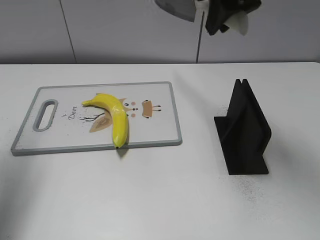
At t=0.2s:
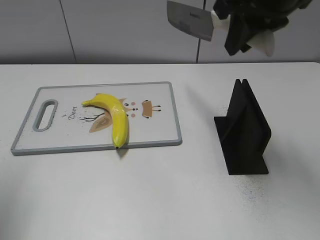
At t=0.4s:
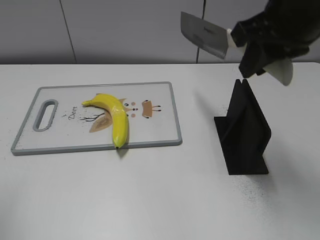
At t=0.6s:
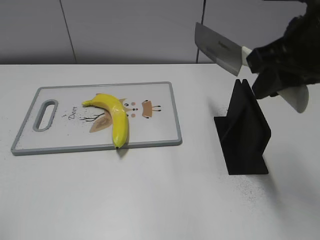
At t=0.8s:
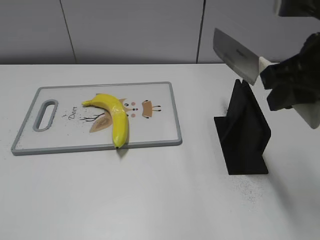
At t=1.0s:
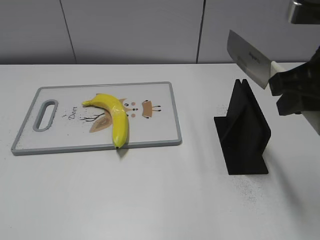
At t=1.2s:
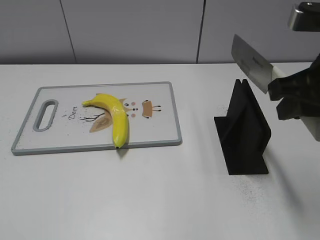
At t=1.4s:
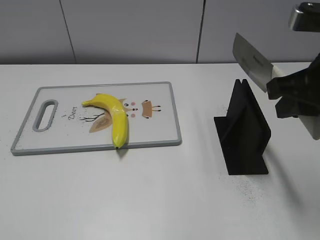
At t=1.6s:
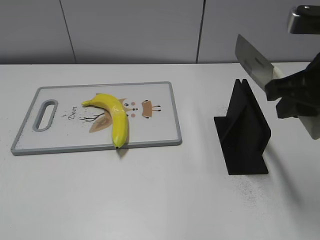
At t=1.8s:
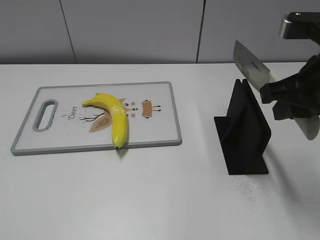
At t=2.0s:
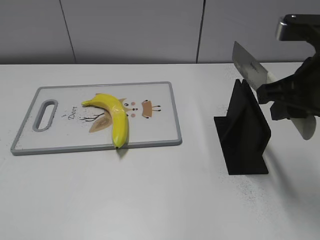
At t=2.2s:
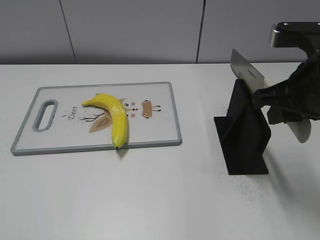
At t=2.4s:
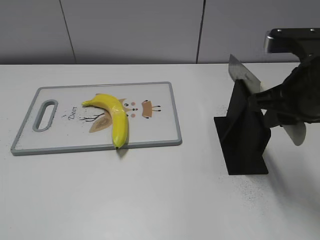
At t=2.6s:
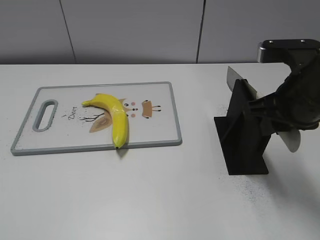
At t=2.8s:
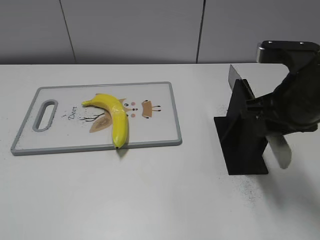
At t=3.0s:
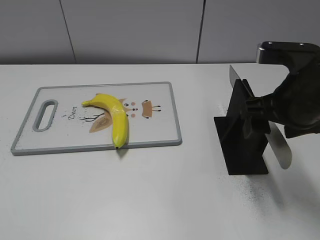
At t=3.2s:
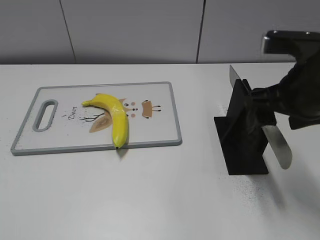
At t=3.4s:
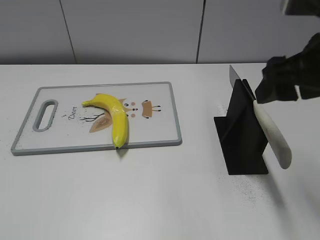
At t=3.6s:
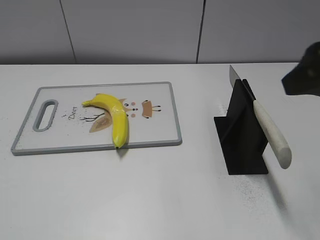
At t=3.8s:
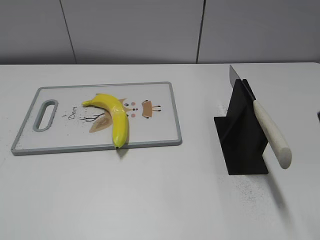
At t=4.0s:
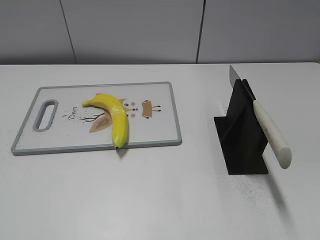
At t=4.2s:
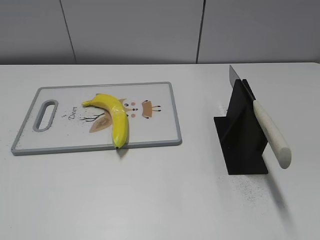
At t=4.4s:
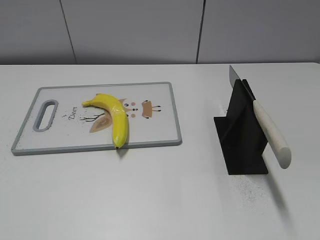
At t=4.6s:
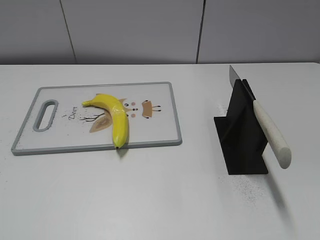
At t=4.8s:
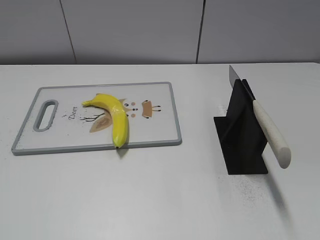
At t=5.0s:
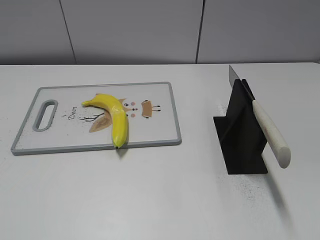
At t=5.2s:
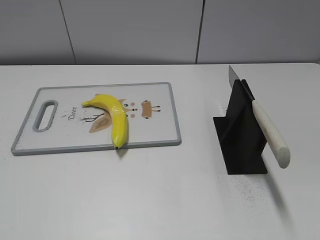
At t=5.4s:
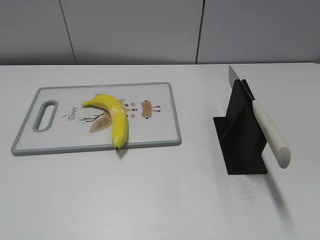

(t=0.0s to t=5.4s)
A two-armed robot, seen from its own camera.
Task of the whole recording: cut plastic banana.
Step, t=0.8s - t=5.4s: Place the knife on the storage rack with your right hand.
t=0.0s - t=1.4s: The left gripper moves backward, approximately 30 cm; the right gripper moves backward, to the right and downward, roughly 20 cm.
t=1.4s - t=2.8s: The right gripper heads downward, covering about 5 cm.
t=2.8s - t=4.0s: The right gripper travels backward, upward and to the right by some 20 cm, and opens its fingers.
t=4.0s - t=5.4s: The right gripper travels backward by approximately 10 cm.
